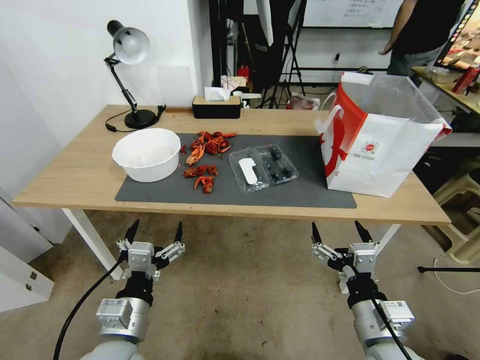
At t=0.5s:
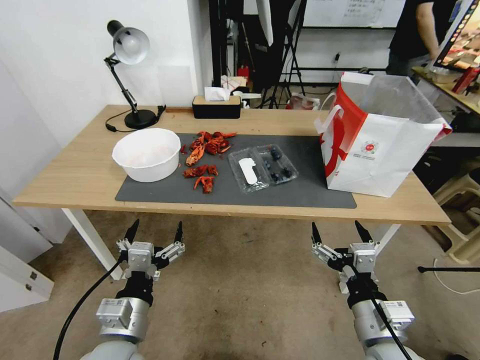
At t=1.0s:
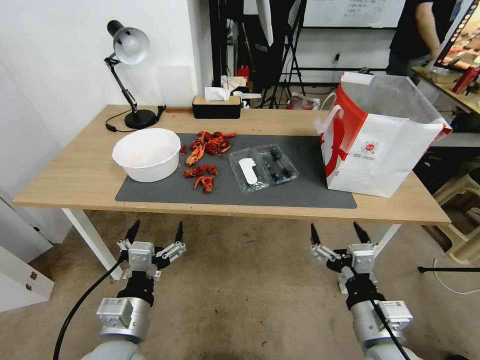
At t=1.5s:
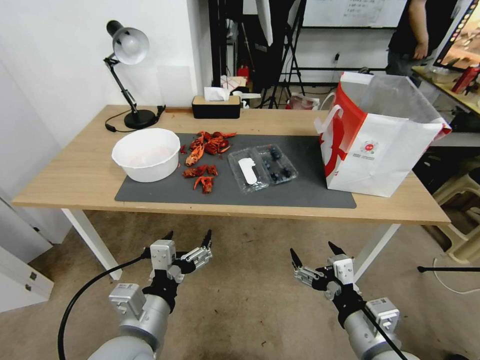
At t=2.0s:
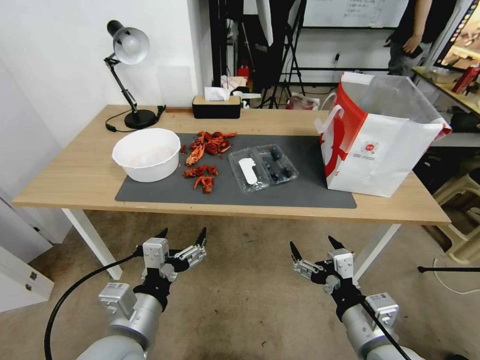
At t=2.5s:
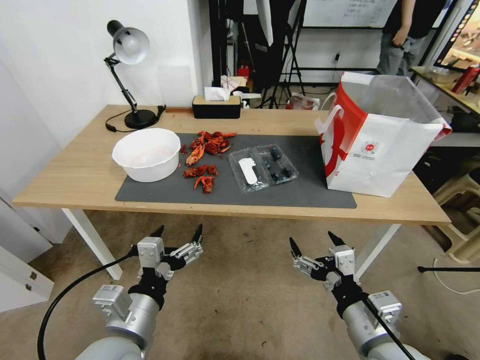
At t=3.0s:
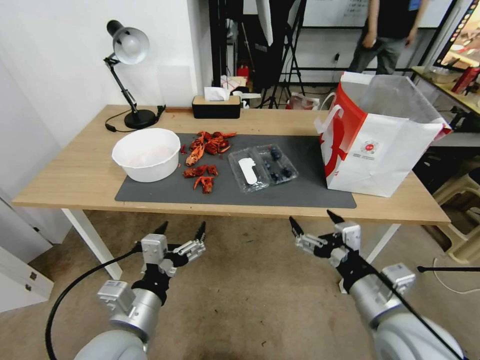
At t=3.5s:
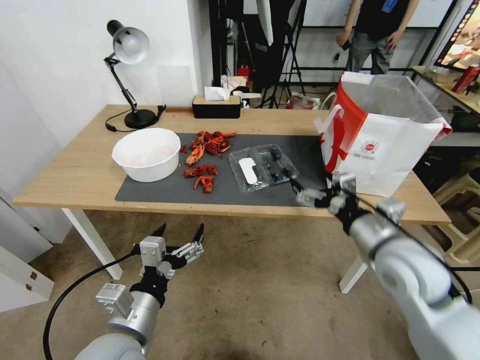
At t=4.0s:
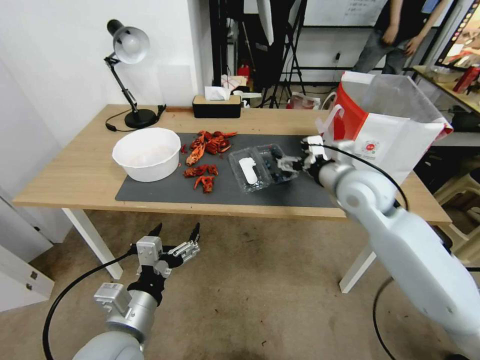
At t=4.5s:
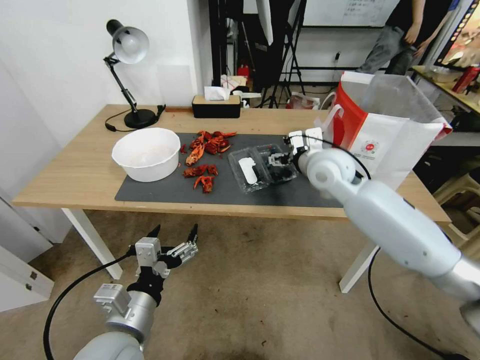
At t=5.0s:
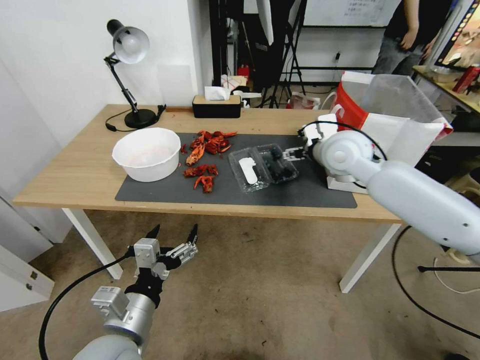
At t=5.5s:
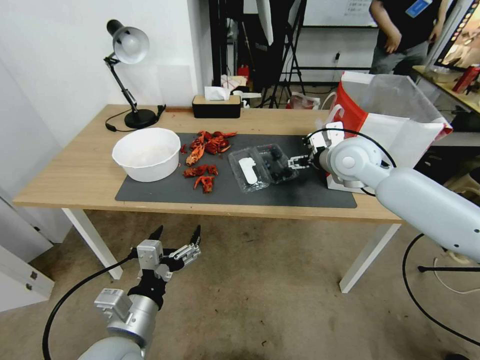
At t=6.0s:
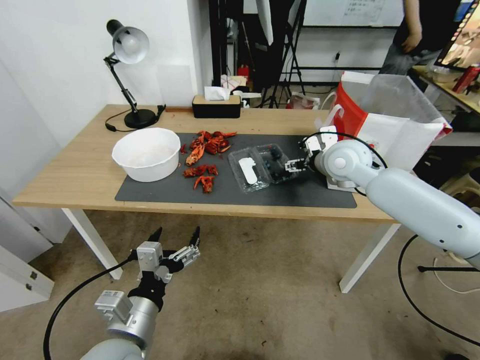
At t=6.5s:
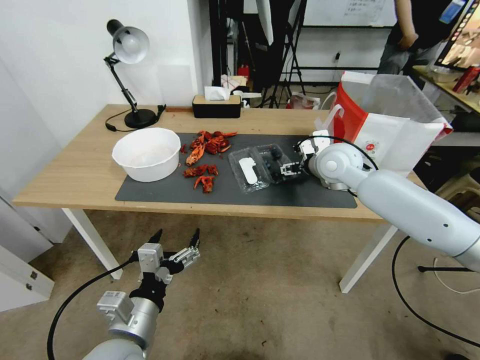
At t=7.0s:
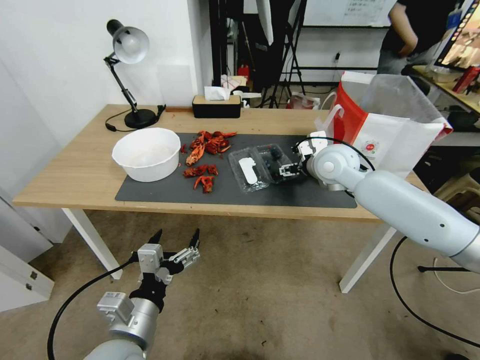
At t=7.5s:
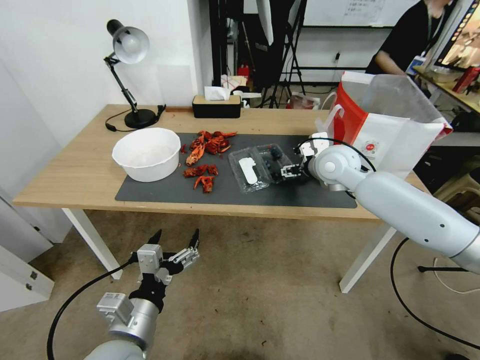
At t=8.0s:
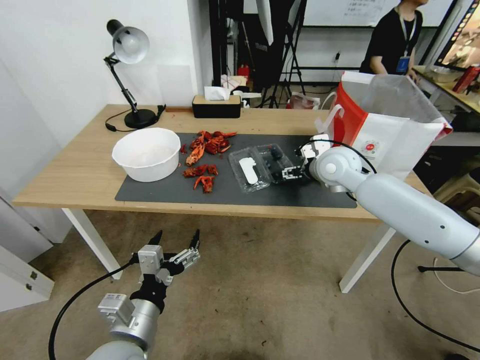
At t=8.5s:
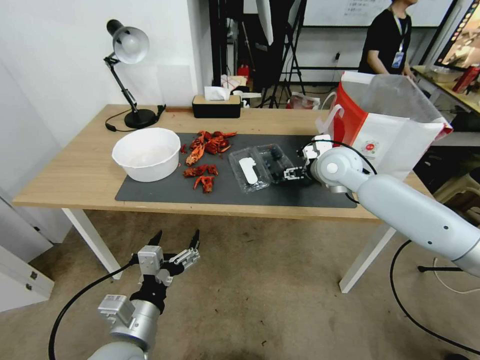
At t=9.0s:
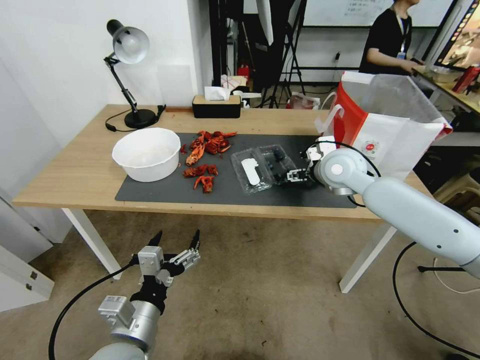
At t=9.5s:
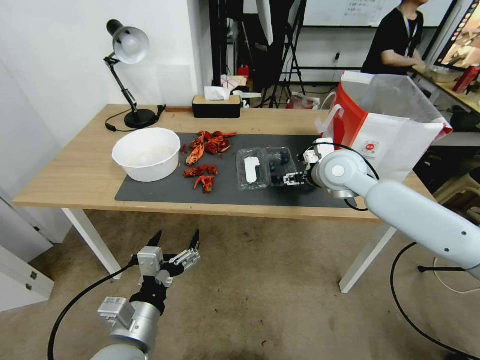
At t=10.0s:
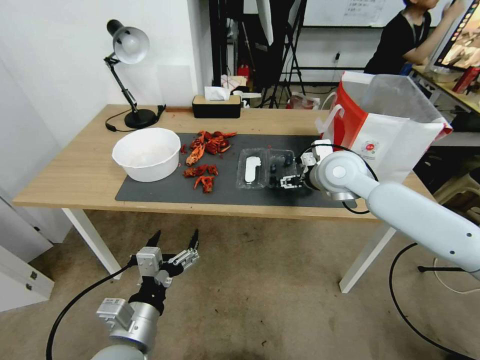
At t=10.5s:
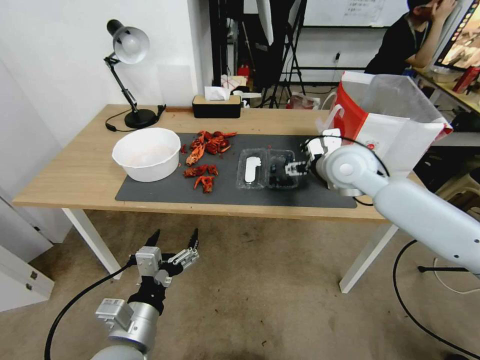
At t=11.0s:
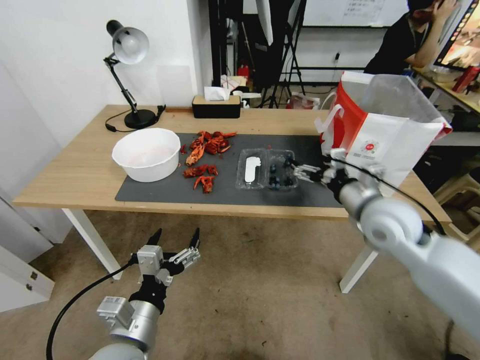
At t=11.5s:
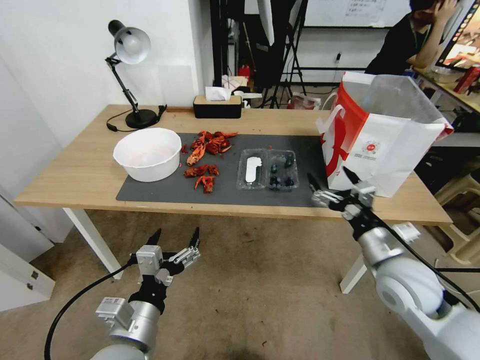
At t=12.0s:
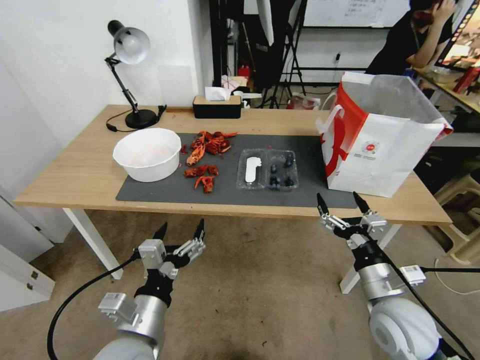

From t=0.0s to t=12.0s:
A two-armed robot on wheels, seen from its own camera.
Task of the whole recording: Close the takeout container lid, then place the container into the takeout bag.
From t=2.0s to t=4.0s: The right gripper is displaced forward and upward by some 30 cm.
From t=4.0s to t=6.0s: The right gripper shifts roughly 10 cm forward.
From t=6.0s to t=10.0s: There are only small adjustments of the grippers.
From t=10.0s to t=12.0s: The right gripper travels backward and downward by approximately 30 cm.

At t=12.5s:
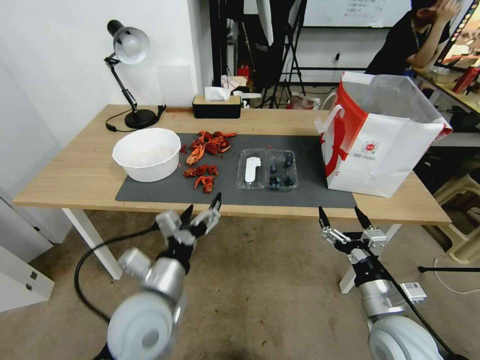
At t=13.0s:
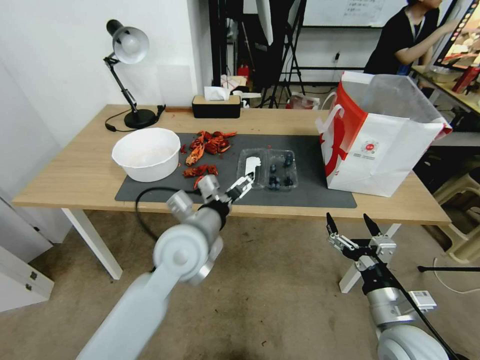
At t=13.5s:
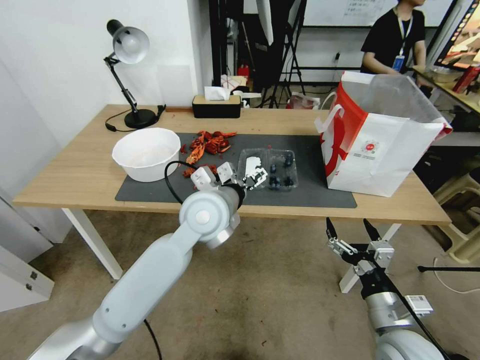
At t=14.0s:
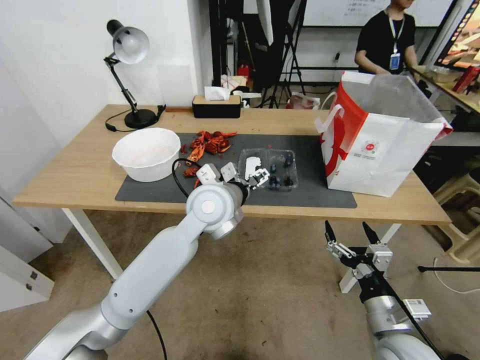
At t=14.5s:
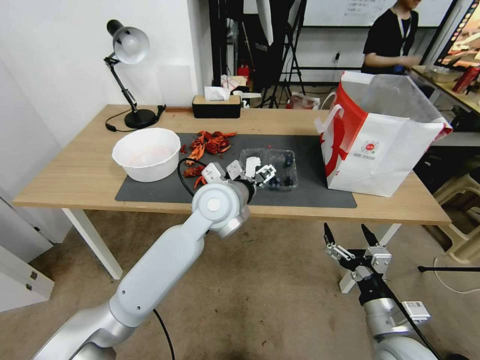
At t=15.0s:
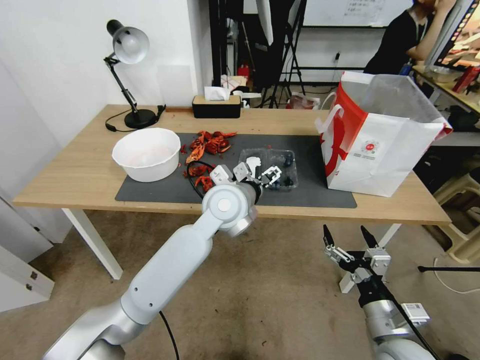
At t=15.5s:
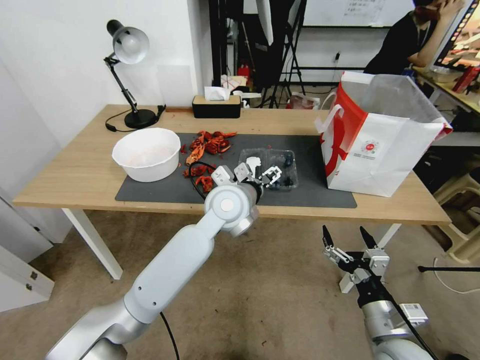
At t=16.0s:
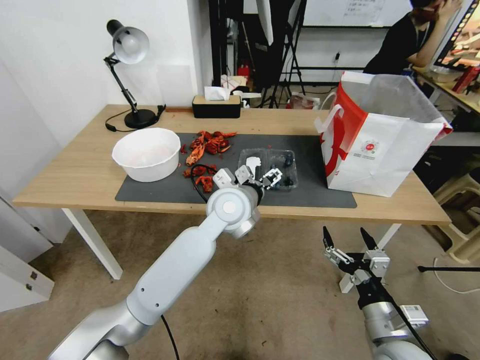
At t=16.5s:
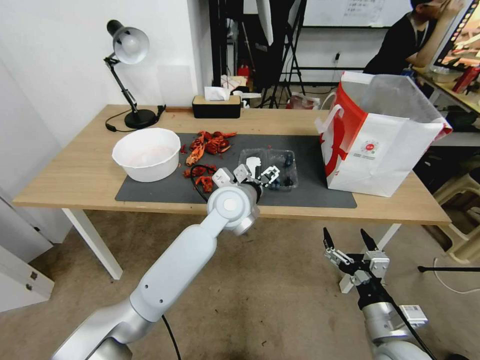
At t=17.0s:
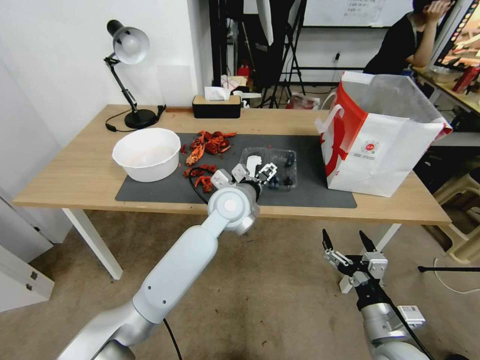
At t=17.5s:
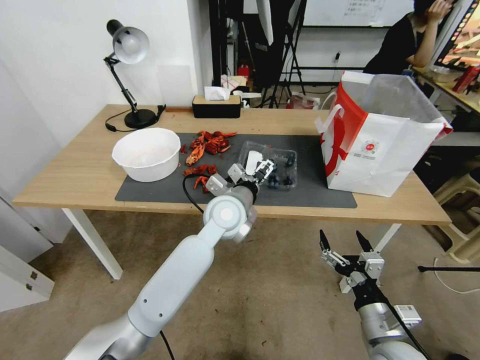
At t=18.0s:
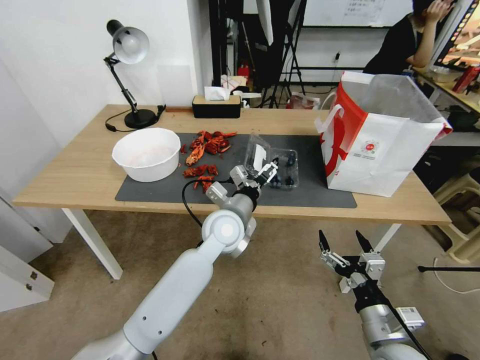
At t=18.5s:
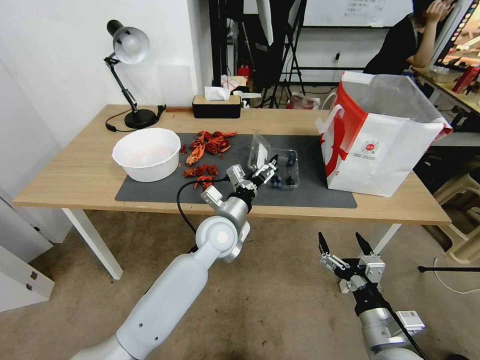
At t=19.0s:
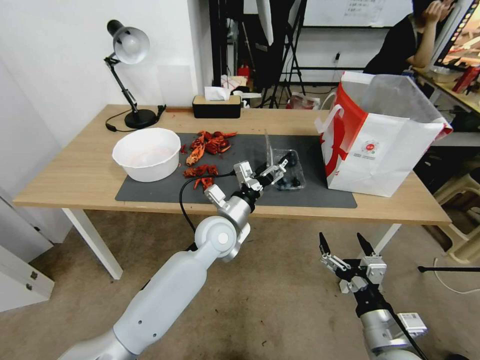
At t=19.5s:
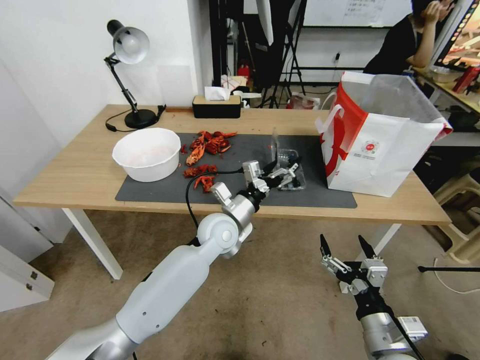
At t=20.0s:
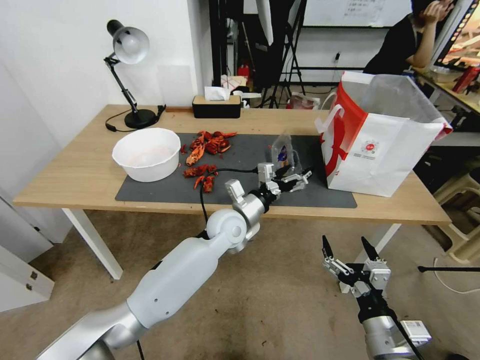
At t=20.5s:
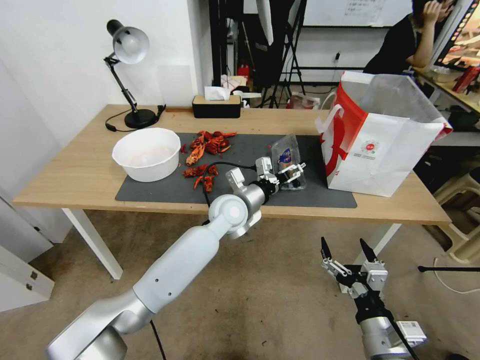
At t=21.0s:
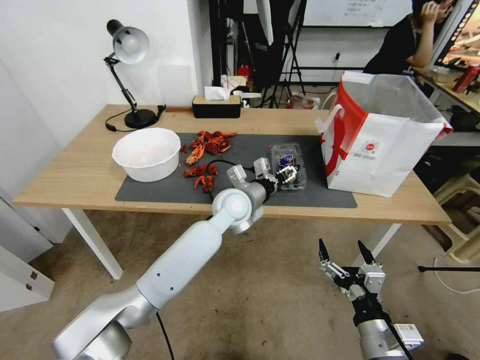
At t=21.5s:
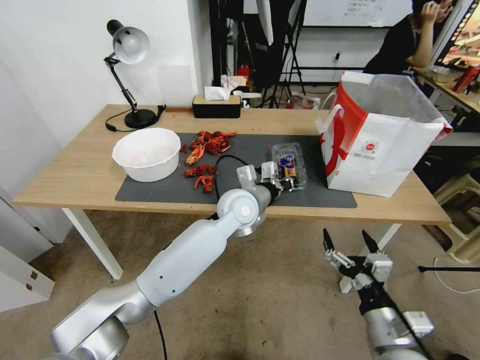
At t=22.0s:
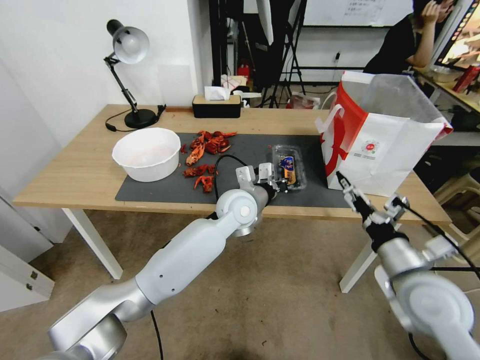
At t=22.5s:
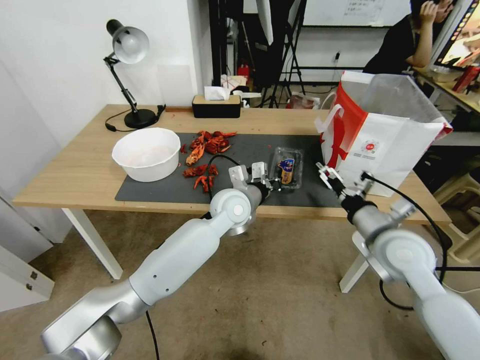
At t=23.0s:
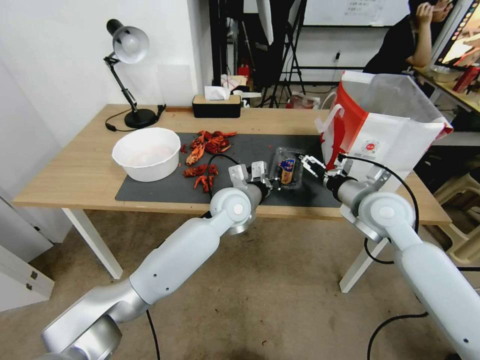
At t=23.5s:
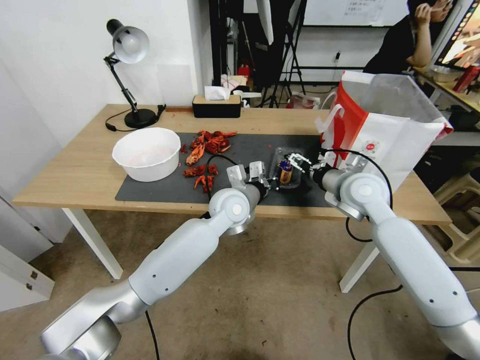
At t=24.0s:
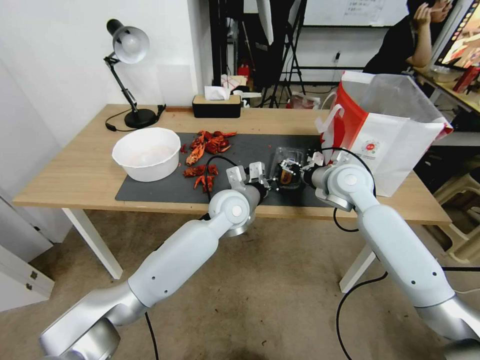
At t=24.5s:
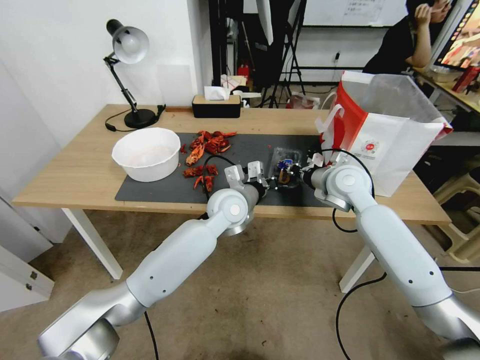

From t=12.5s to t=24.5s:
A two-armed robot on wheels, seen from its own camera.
Task of the whole recording: Close the takeout container lid, then place the container into the takeout bag.
From t=12.5s to t=14.5s: The left gripper heads forward and to the right, covering about 20 cm.
From t=14.5s to t=16.5s: There are only small adjustments of the grippers.
From t=16.5s to t=18.5s: The left gripper travels downward by approximately 5 cm.
From t=18.5s to t=20.5s: The left gripper is displaced forward by roughly 5 cm.
From t=20.5s to t=22.5s: The left gripper closes its fingers. Meanwhile the right gripper travels forward and upward by some 20 cm.
From t=22.5s to t=24.5s: The right gripper is displaced forward by roughly 15 cm, and closes its fingers.

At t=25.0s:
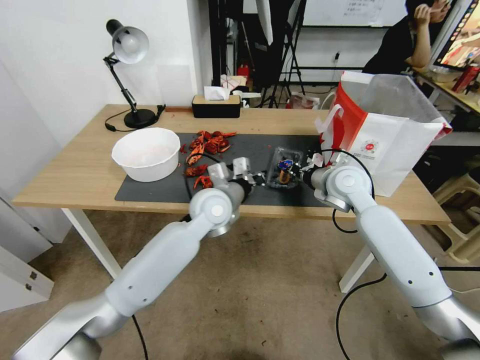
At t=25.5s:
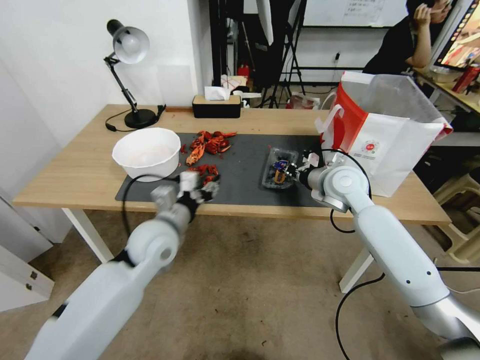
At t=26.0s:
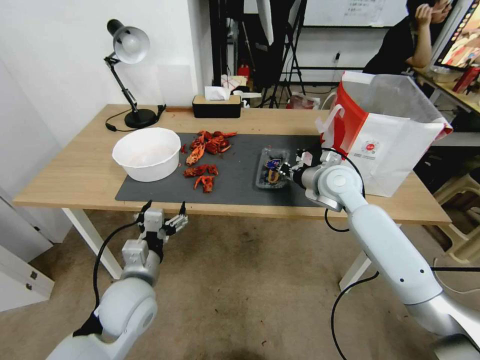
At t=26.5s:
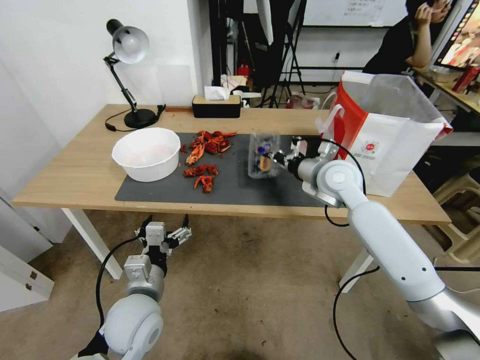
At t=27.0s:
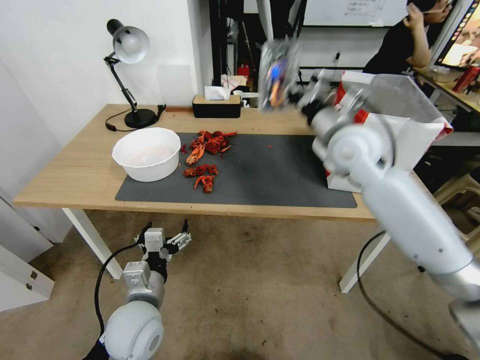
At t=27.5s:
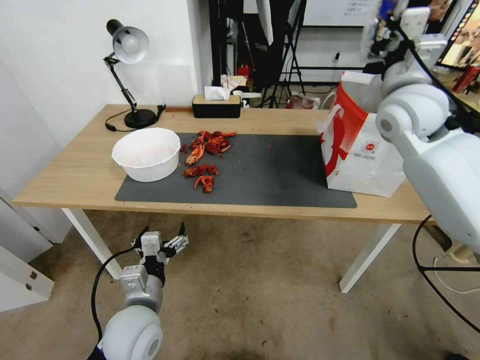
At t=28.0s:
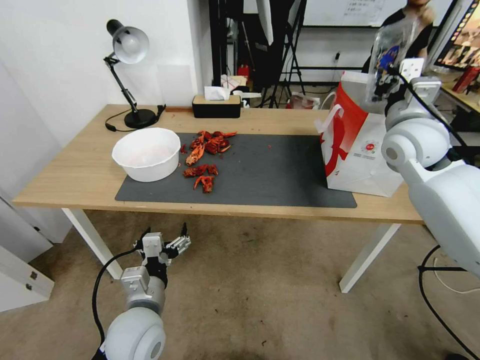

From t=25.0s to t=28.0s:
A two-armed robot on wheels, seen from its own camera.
Task of the whole recording: Close the takeout container lid, then place the container into the takeout bag.
From t=25.0s to t=26.5s: The left gripper goes some 25 cm backward, to the left and downward, and opens.
From t=26.5s to t=28.0s: The right gripper travels to the right and upward by roughly 15 cm.
